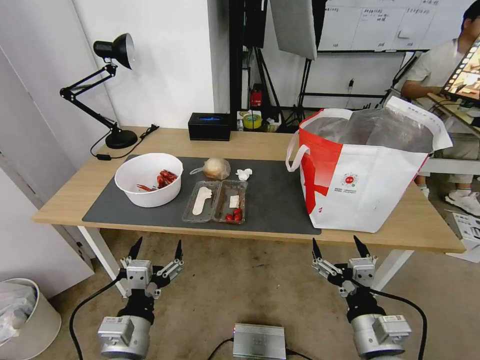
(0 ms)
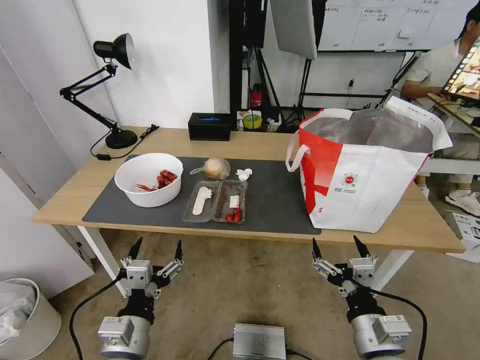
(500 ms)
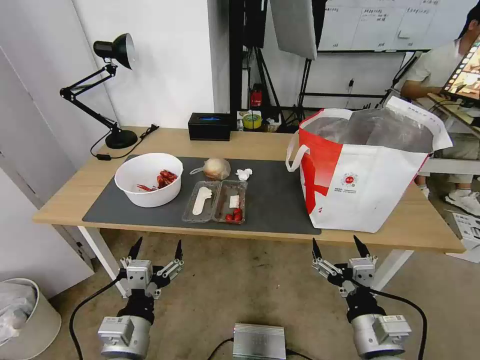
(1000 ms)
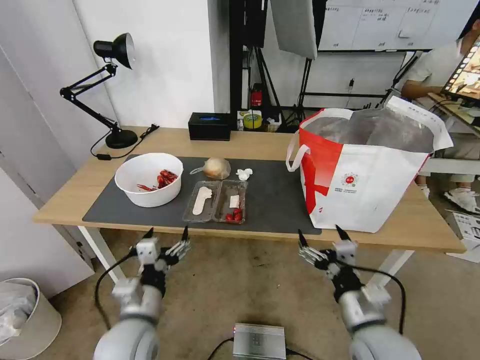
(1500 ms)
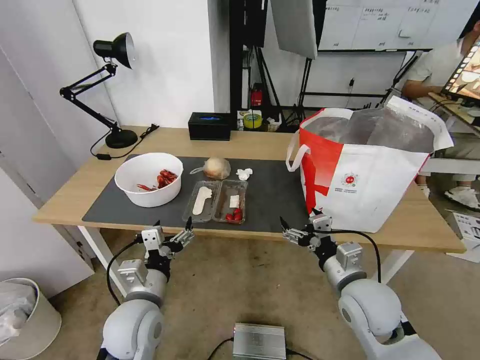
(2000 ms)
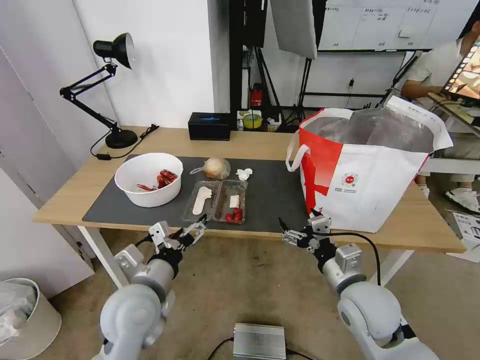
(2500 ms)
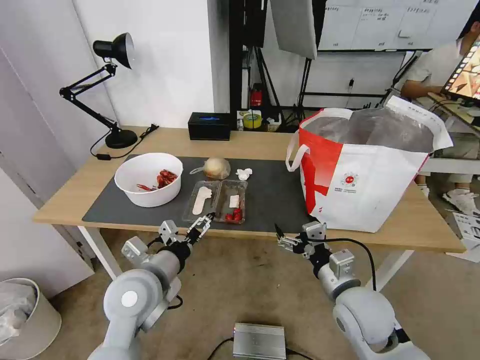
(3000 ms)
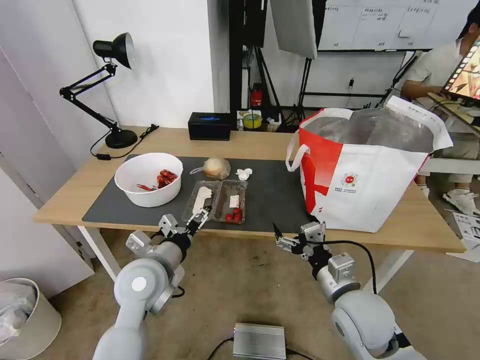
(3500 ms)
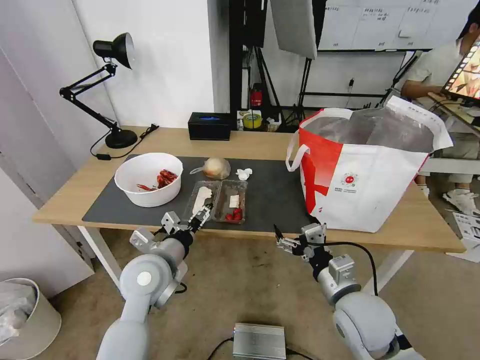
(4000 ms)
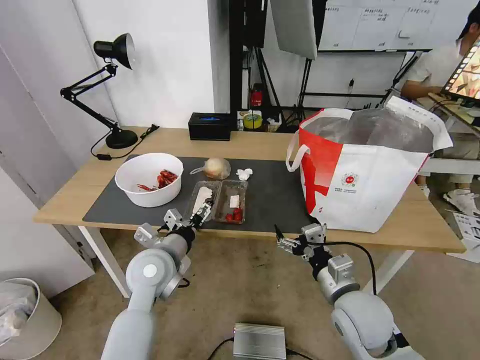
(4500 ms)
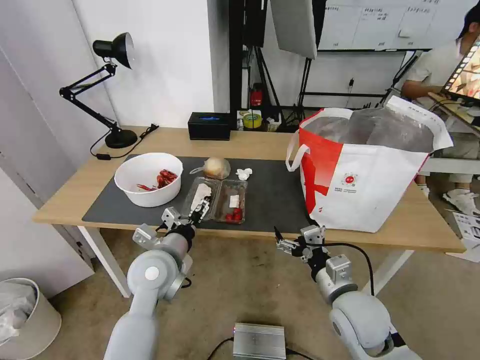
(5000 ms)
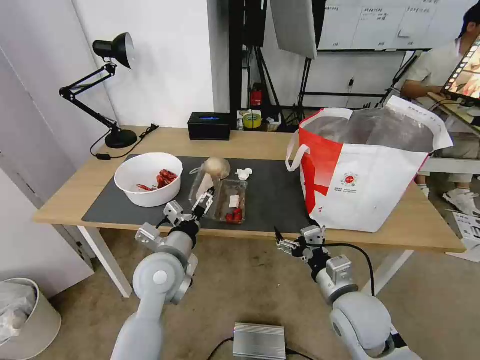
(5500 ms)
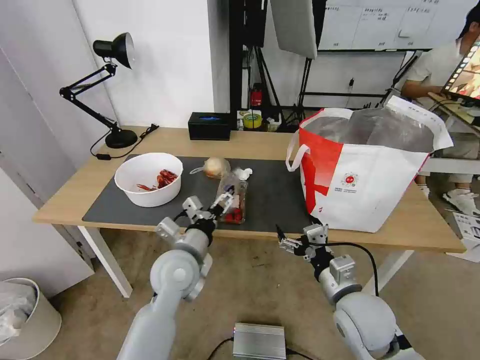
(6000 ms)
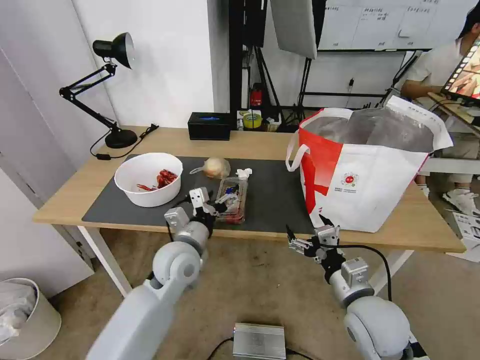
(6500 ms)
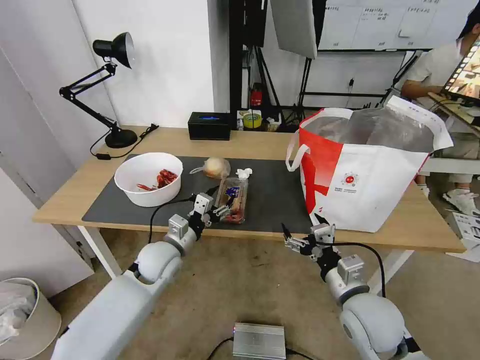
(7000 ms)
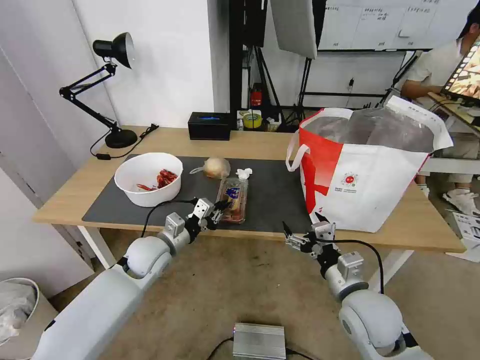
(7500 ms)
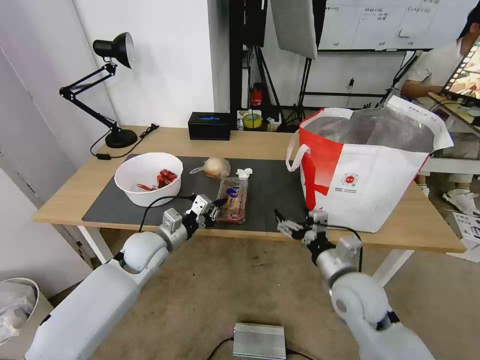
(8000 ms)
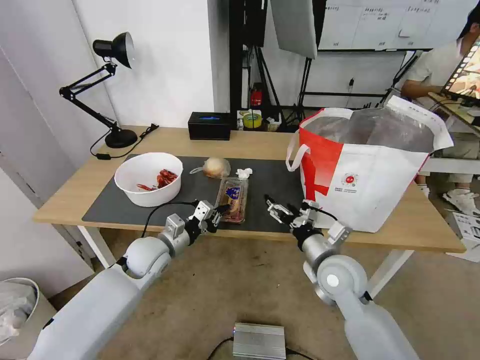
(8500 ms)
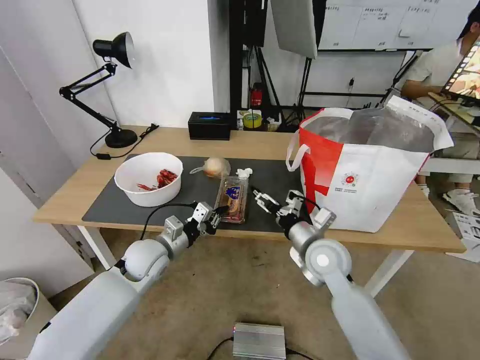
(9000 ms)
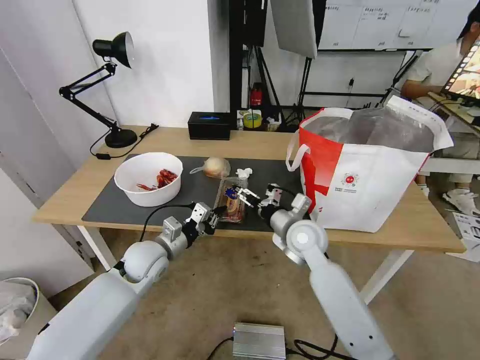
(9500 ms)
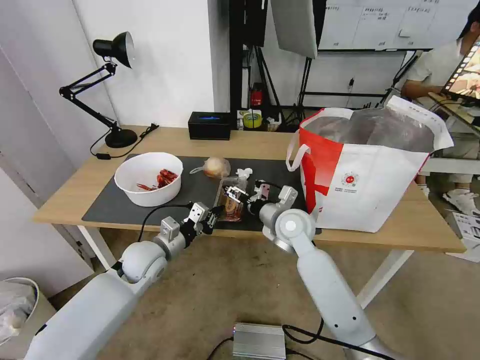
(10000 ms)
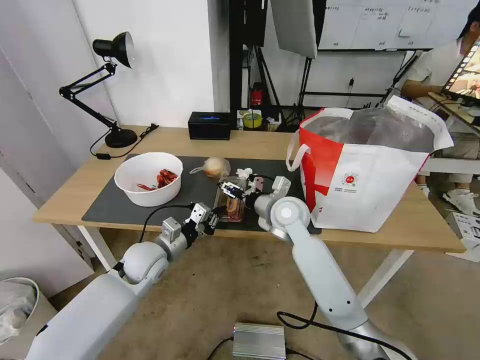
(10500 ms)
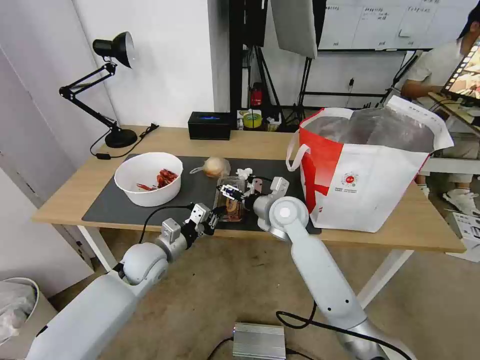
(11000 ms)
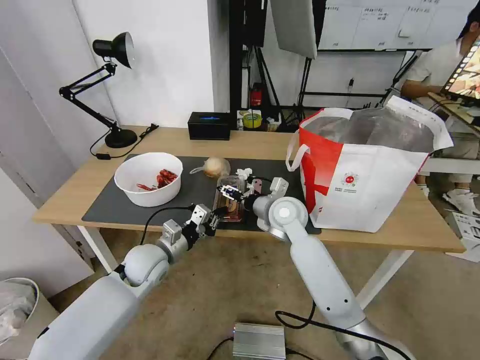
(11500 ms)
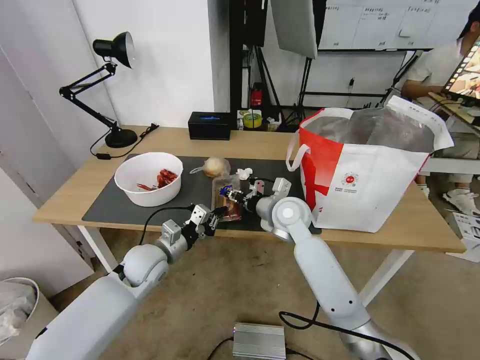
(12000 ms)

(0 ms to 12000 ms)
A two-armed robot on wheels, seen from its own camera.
Task of the whole recording: Pick up the trash from the table and place it into the takeout bag.
2000 ms - 4000 ms: The left gripper travels forward by about 5 cm.
4000 ms - 6000 ms: The left gripper travels to the right by some 5 cm.
6000 ms - 8000 ms: The left gripper moves to the left and forward, about 10 cm, and closes.
8000 ms - 10000 ms: The right gripper travels forward and to the left by approximately 20 cm.
10000 ms - 12000 ms: The right gripper closes up.

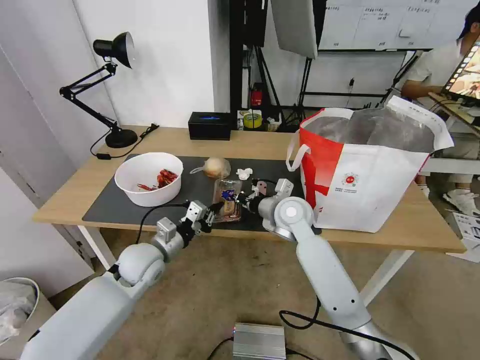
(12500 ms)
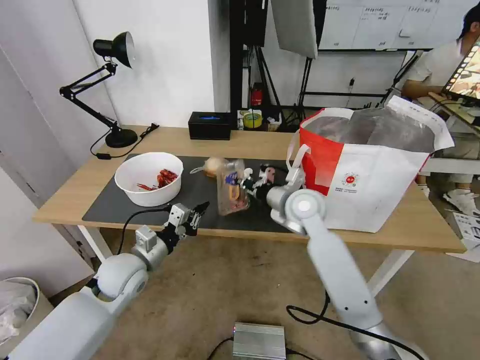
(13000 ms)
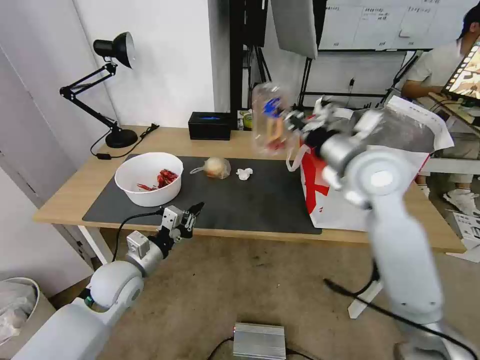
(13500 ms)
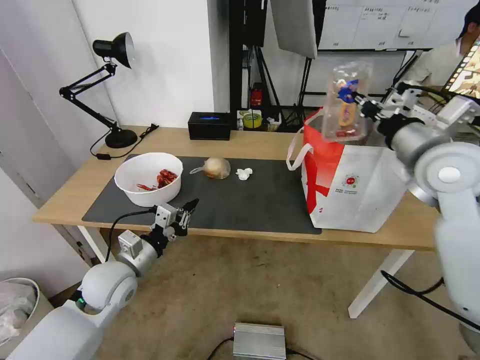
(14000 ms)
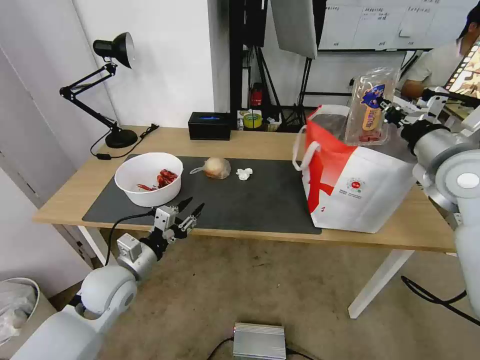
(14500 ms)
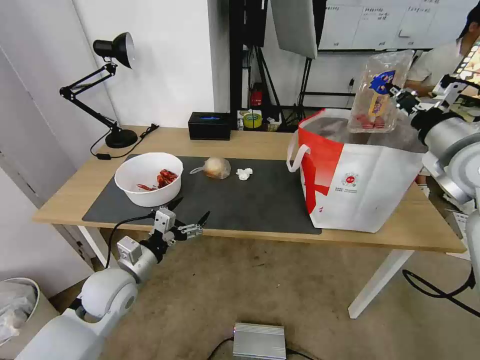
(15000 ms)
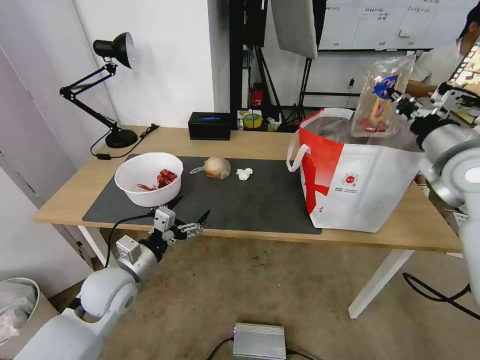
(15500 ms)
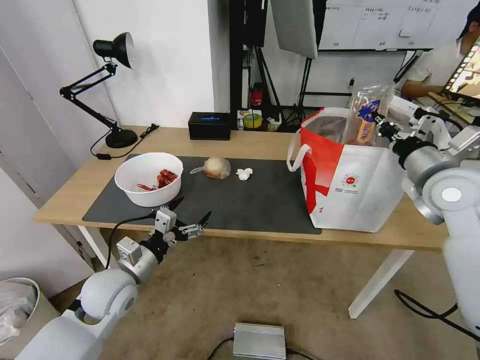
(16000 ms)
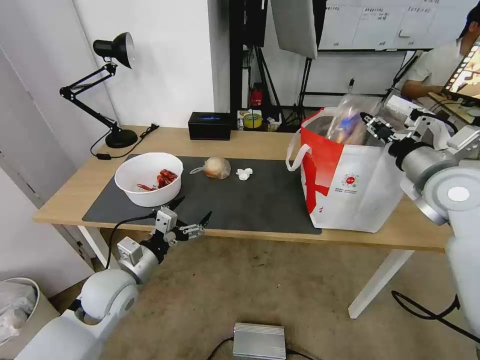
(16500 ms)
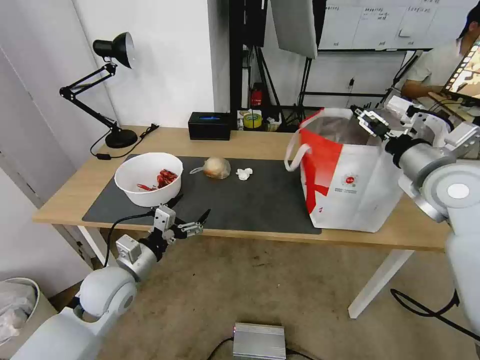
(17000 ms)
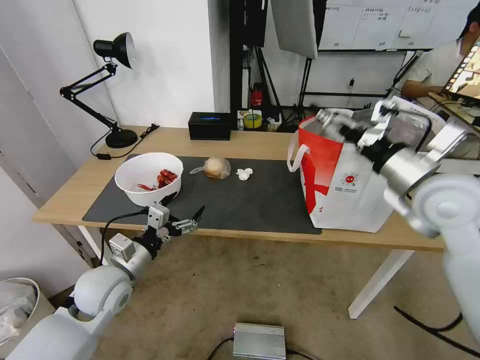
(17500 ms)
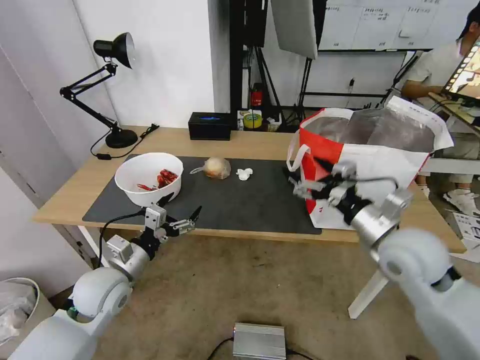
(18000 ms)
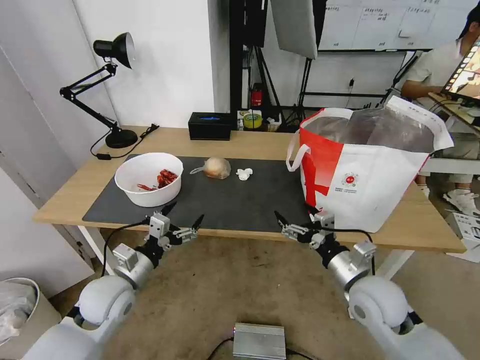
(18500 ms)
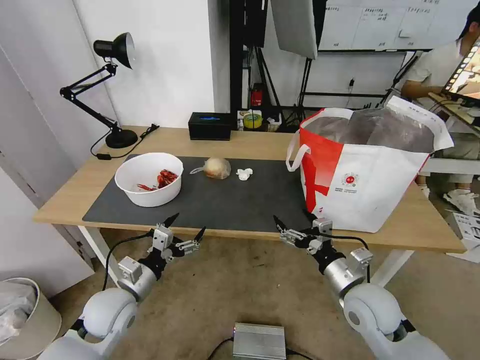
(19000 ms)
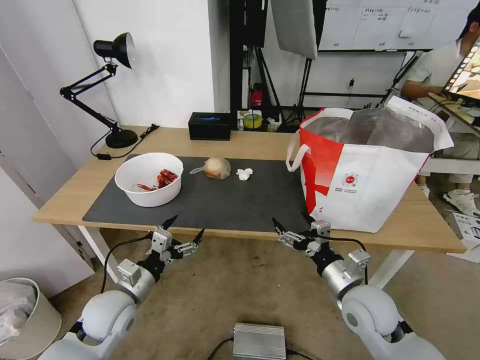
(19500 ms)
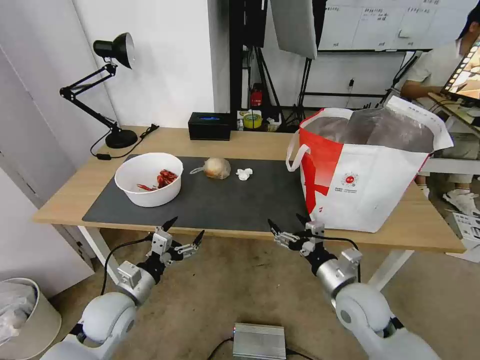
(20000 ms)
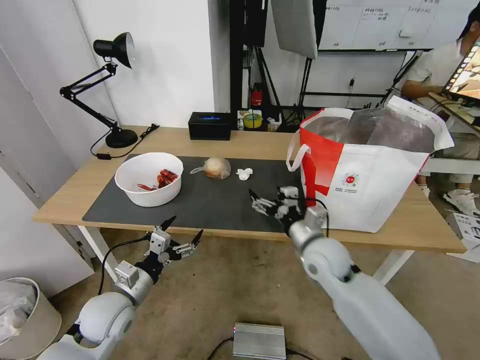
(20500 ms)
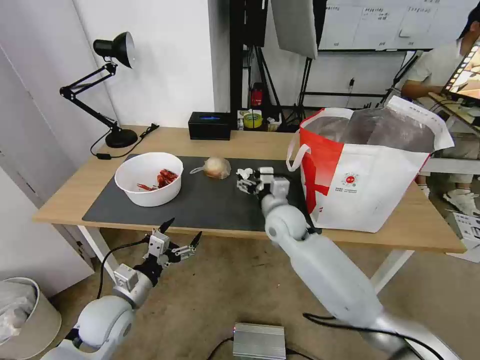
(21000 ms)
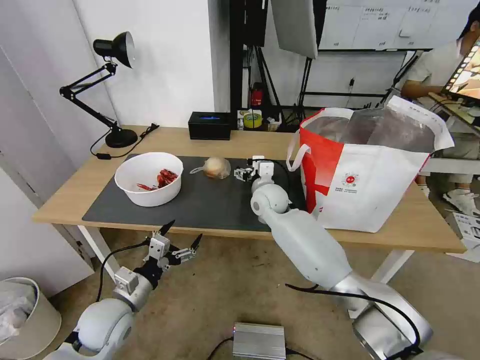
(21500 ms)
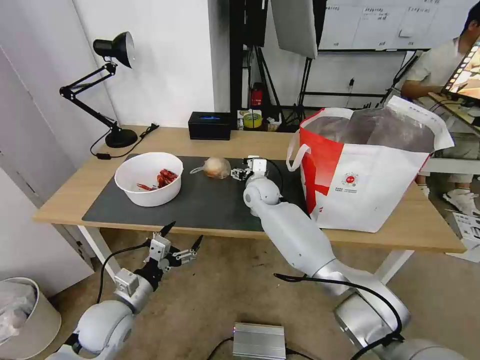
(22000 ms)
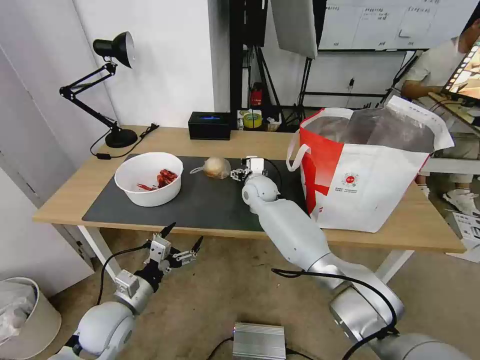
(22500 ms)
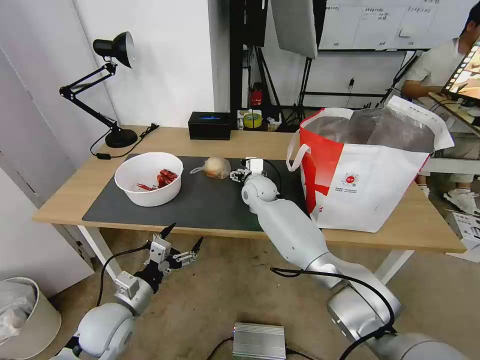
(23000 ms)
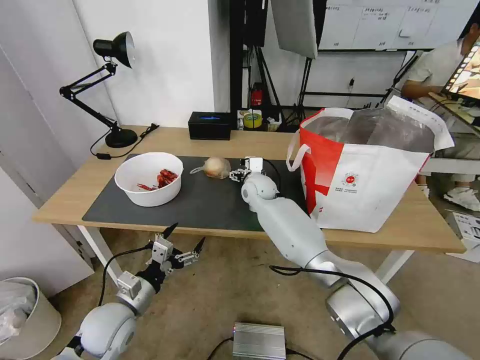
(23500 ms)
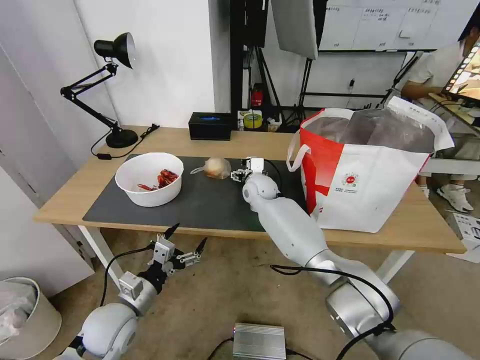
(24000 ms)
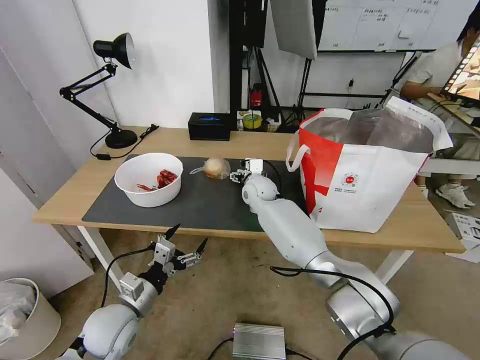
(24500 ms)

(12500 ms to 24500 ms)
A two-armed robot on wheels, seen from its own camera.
Task of the whole recording: Pick up the trash from the table and place it into the takeout bag.
12500 ms - 14500 ms: The left gripper moves backward, roughly 5 cm, and opens; the right gripper shifts some 30 cm to the right and upward.
14500 ms - 16500 ms: The left gripper opens up. The right gripper opens up.
16500 ms - 18500 ms: The right gripper is displaced downward, backward and to the left by roughly 25 cm, and opens.
18500 ms - 20500 ms: The right gripper moves forward and to the left, about 10 cm.
20500 ms - 22500 ms: The right gripper goes roughly 25 cm forward and to the left.
22500 ms - 24500 ms: There are only small adjustments of the grippers.

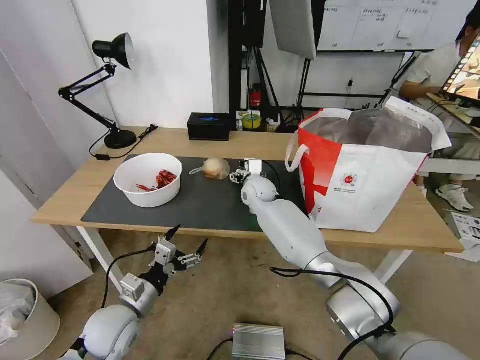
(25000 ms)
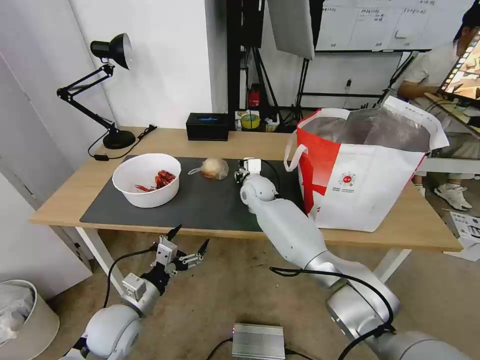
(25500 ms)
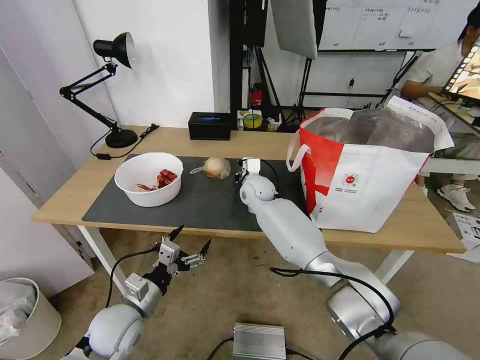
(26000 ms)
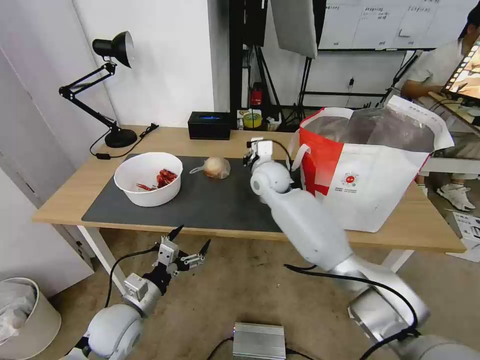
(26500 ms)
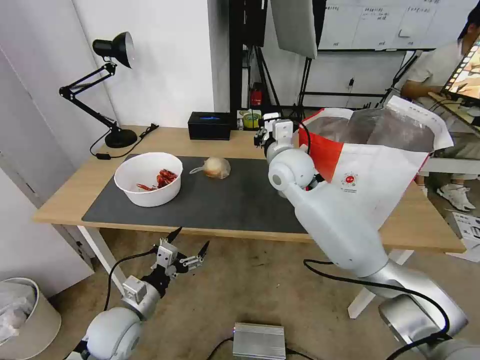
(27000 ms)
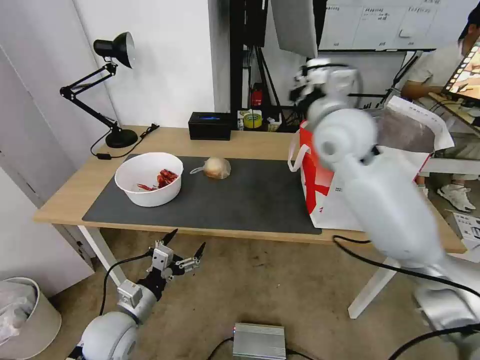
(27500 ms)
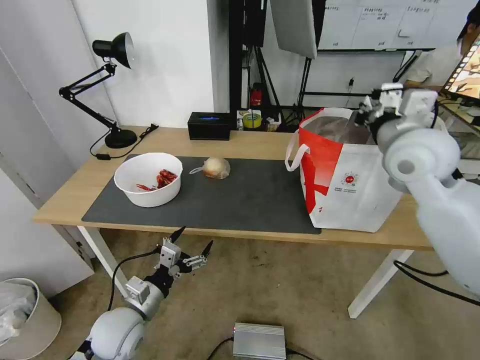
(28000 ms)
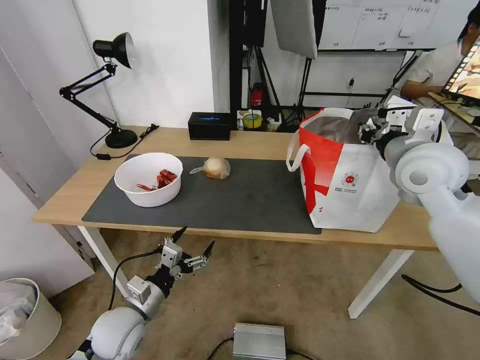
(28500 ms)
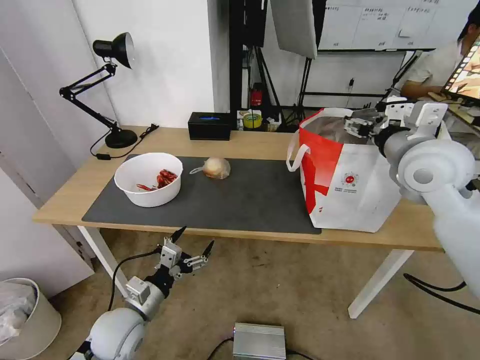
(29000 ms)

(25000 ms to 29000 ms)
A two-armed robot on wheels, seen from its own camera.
Task of the whole recording: Pick up the trash from the table and place it into the takeout bag.
25000 ms - 27000 ms: The right gripper goes some 15 cm upward and backward, and closes.
27000 ms - 29000 ms: The right gripper goes roughly 25 cm to the right and backward, and opens.
